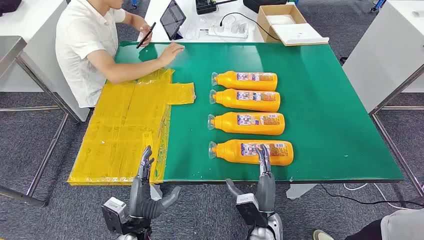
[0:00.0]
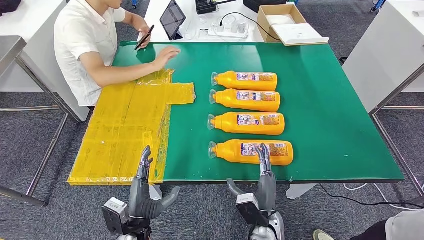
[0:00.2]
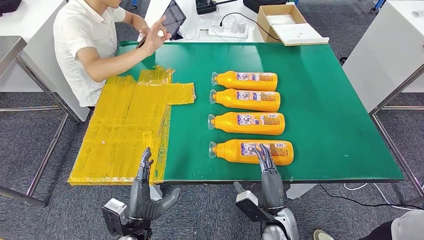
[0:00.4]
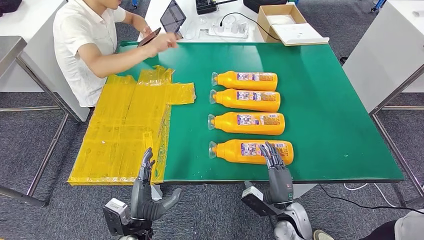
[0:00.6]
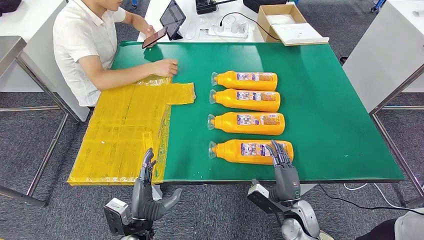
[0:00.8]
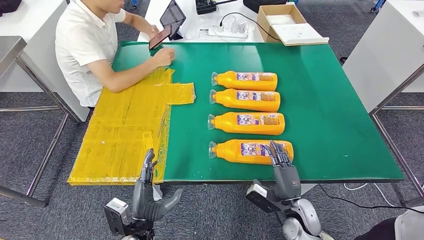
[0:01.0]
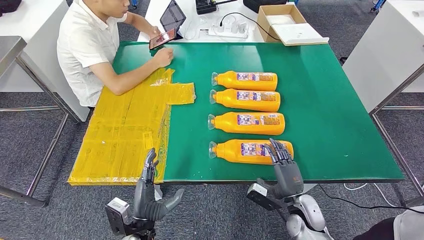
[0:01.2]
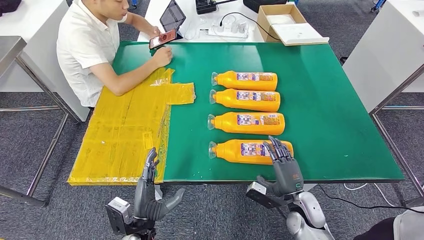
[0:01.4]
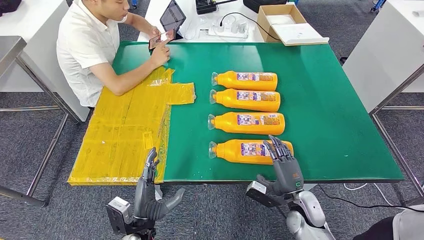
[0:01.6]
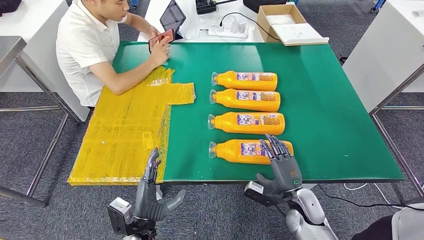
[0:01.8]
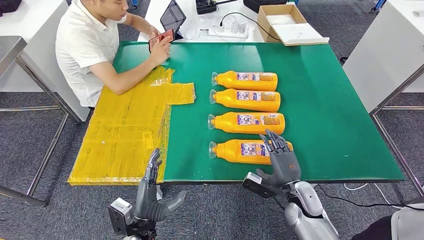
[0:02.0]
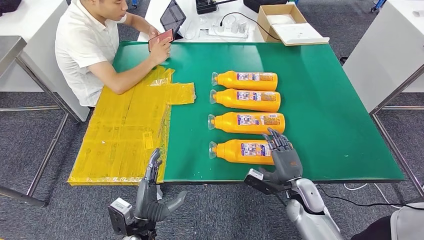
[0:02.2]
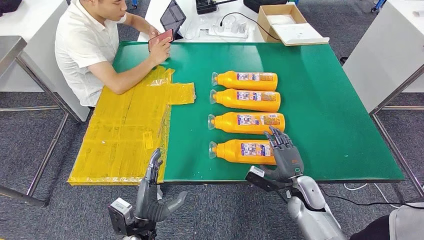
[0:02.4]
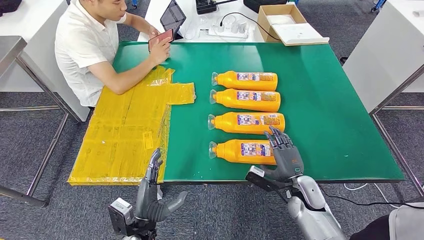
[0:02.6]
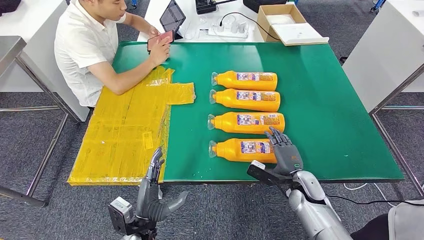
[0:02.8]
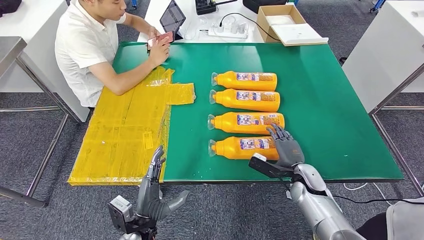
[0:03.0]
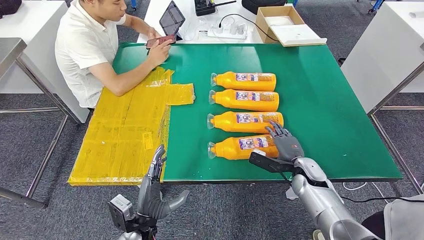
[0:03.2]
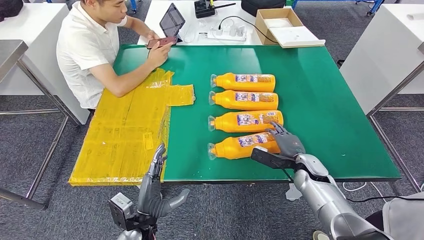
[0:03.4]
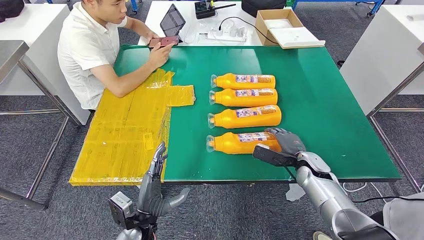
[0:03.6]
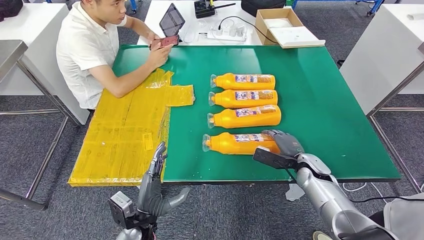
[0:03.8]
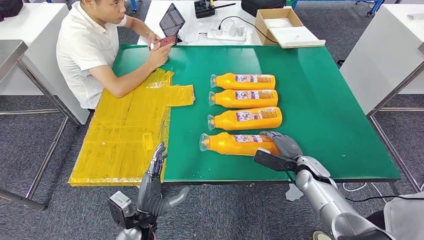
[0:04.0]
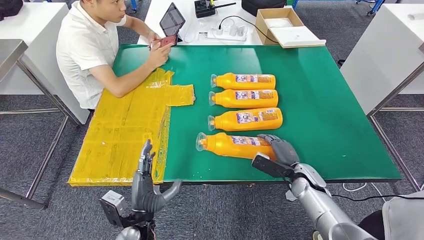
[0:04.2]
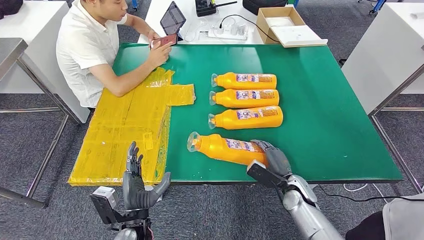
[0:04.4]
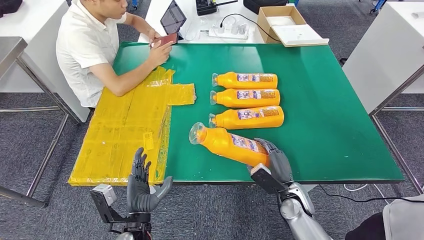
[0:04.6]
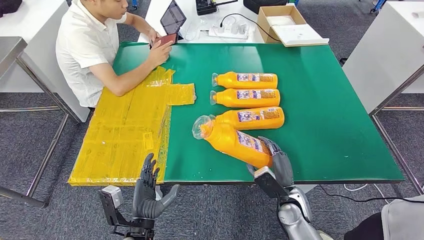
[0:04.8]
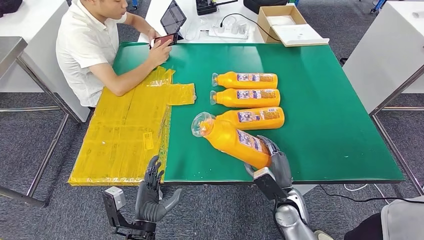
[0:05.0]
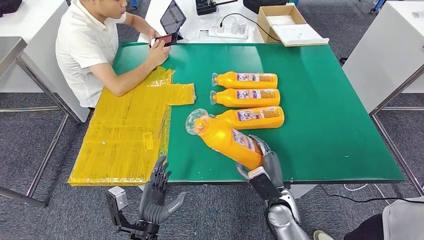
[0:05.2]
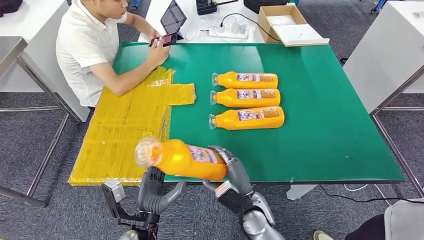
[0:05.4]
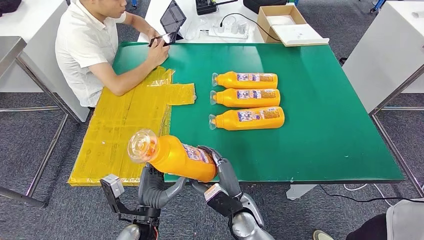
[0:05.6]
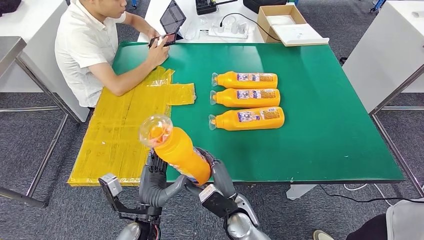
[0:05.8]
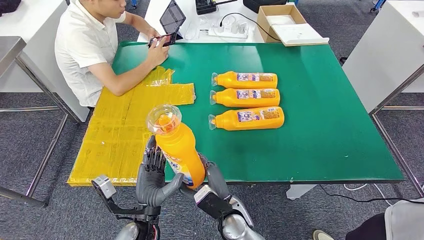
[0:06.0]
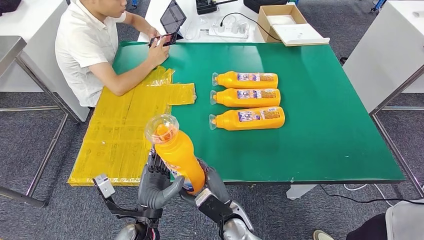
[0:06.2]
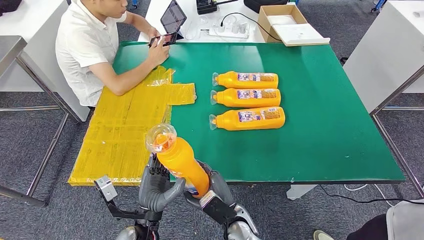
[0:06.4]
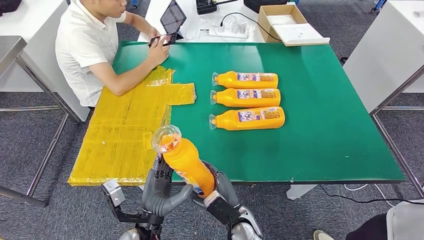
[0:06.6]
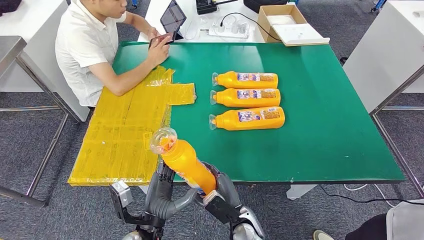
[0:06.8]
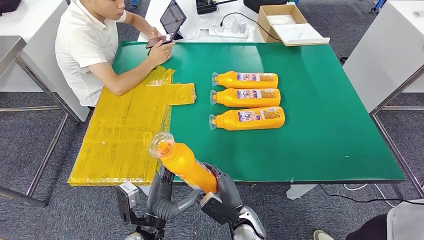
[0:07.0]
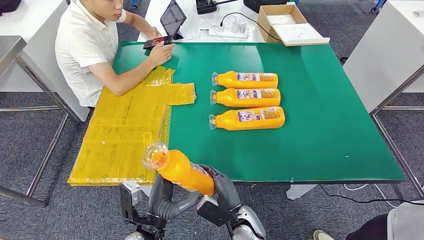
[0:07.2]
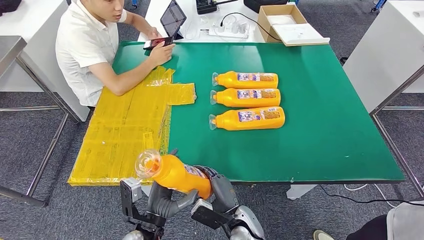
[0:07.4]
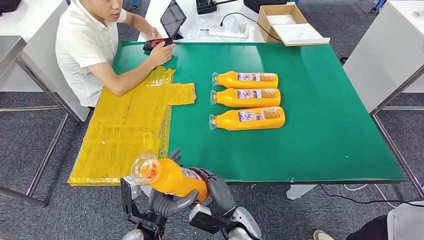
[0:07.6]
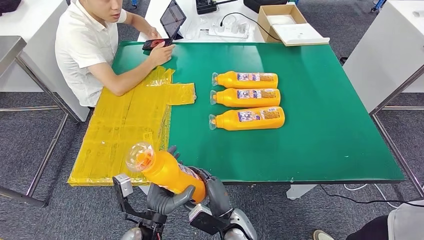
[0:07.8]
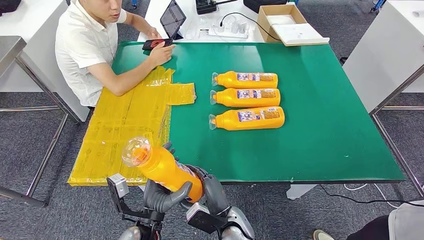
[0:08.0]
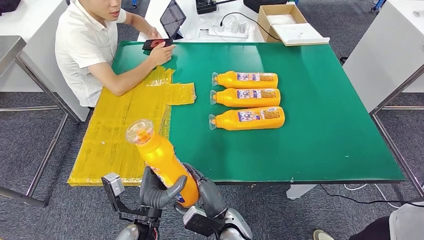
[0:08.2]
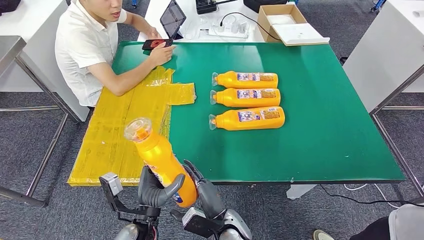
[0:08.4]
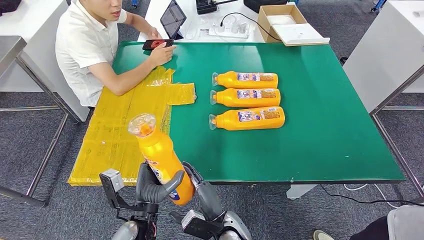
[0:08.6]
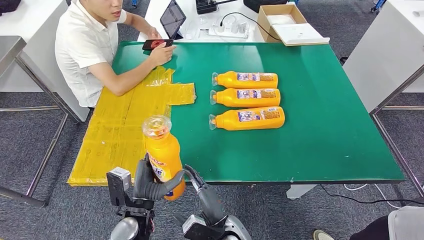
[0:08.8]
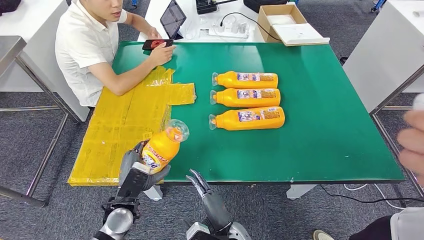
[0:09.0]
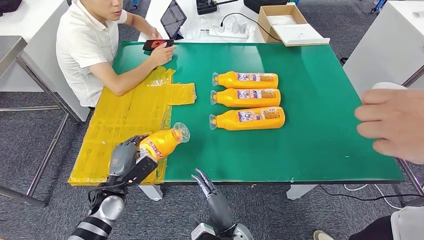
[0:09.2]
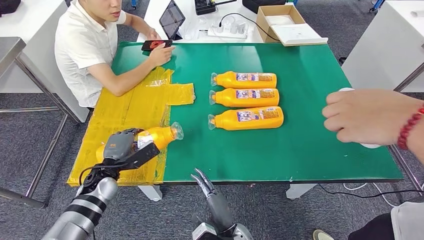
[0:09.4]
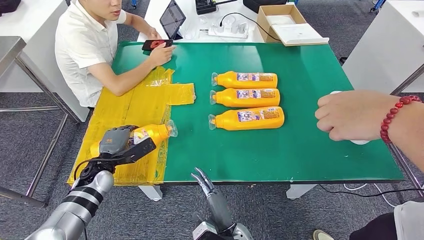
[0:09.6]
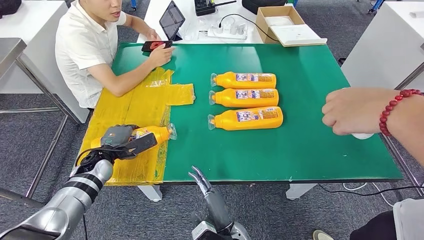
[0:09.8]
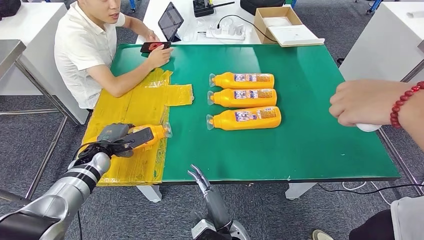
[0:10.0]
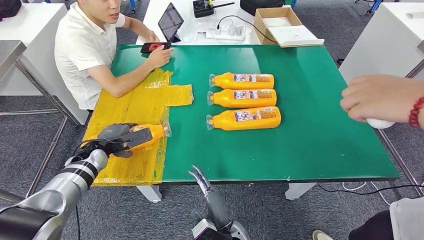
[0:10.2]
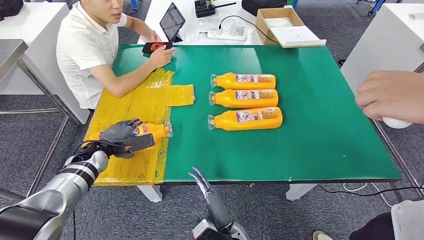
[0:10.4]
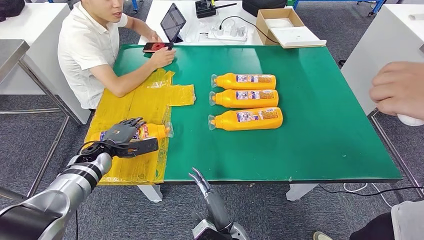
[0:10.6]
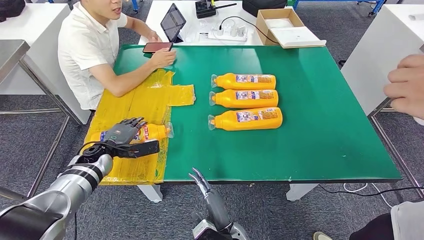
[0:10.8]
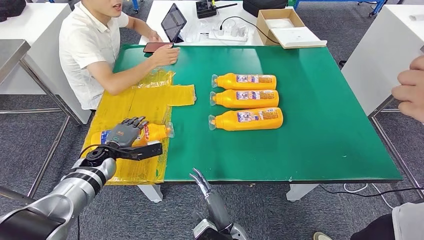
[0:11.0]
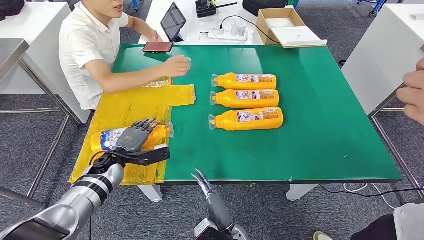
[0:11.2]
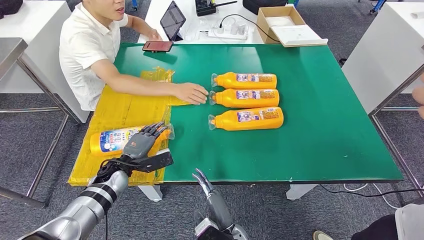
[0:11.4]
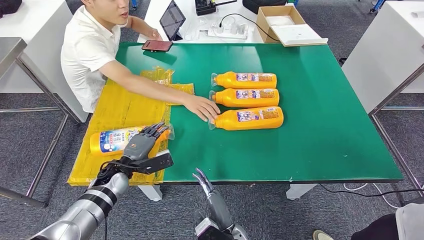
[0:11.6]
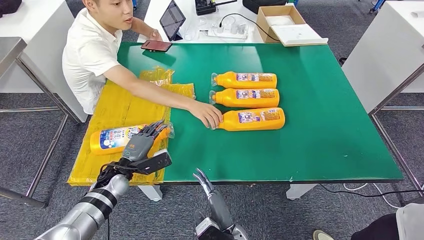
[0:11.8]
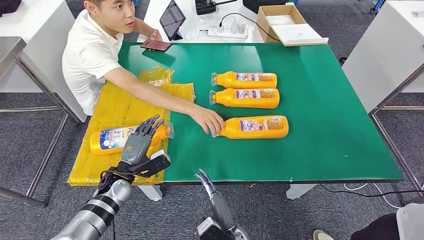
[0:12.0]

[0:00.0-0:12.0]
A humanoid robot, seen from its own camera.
Step, 0:00.0 to 0:06.2: Take the fast-moving consumer goods bottle from the table.
Step, 0:06.4 to 0:11.6: Flip the fast-moving consumer goods bottle to the front side.
0:01.6 to 0:03.0: The right hand moves forward, roughly 5 cm.
0:04.4 to 0:06.0: The right hand moves to the left, some 20 cm.
0:07.6 to 0:09.0: The left hand travels to the left and forward by about 10 cm.

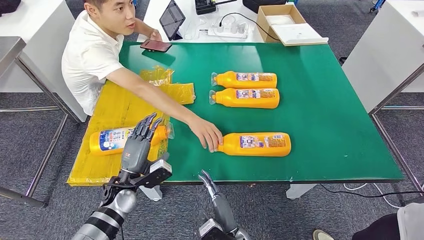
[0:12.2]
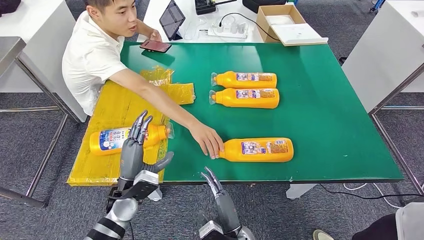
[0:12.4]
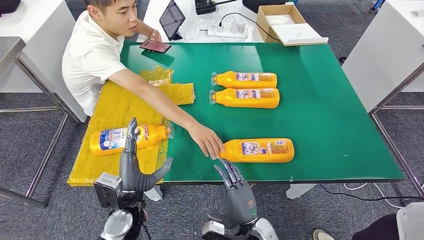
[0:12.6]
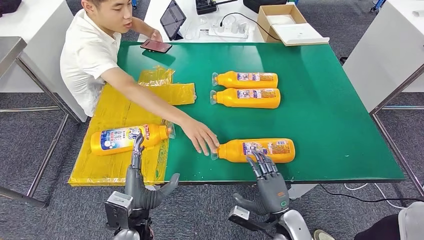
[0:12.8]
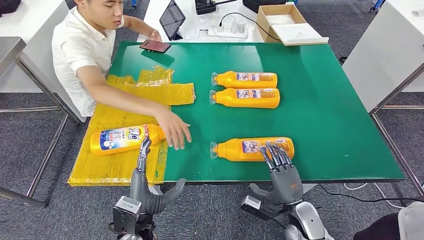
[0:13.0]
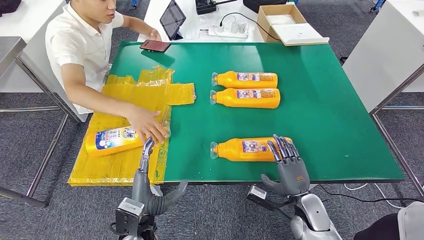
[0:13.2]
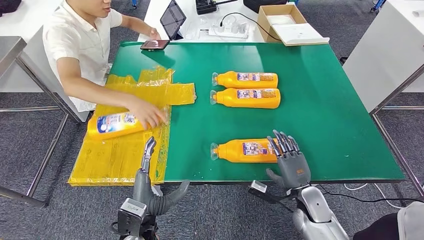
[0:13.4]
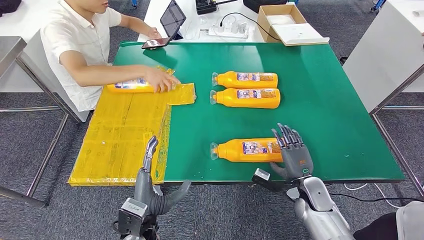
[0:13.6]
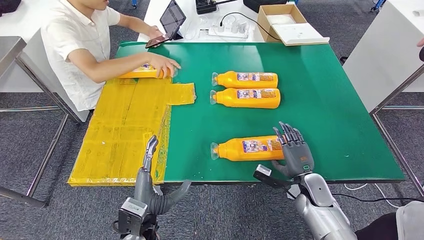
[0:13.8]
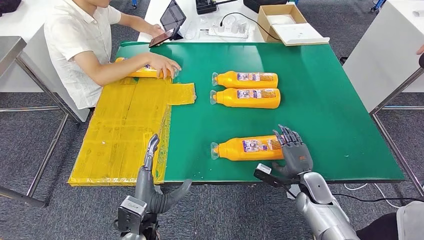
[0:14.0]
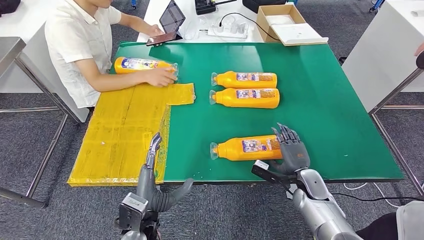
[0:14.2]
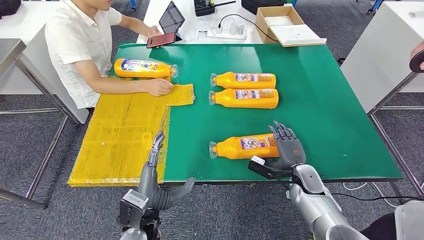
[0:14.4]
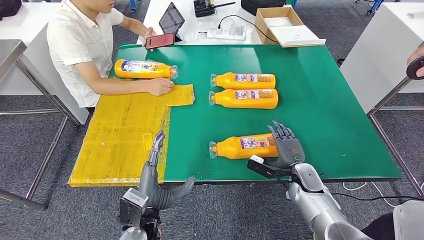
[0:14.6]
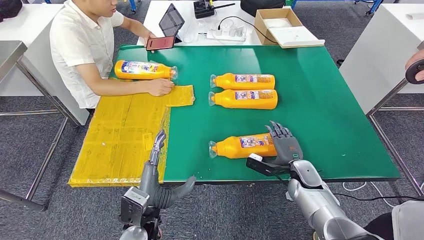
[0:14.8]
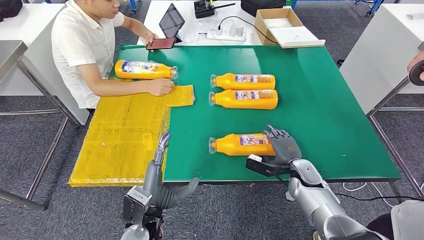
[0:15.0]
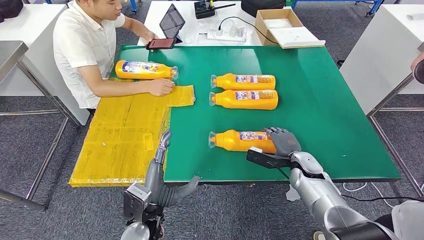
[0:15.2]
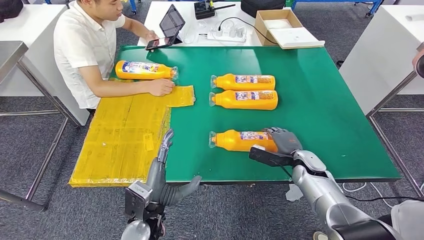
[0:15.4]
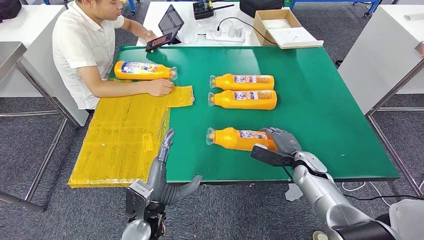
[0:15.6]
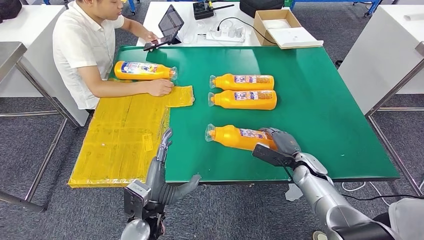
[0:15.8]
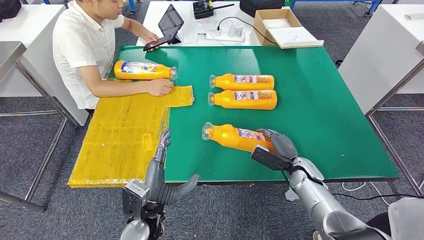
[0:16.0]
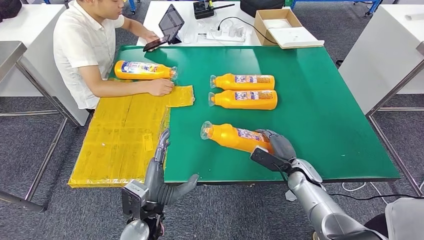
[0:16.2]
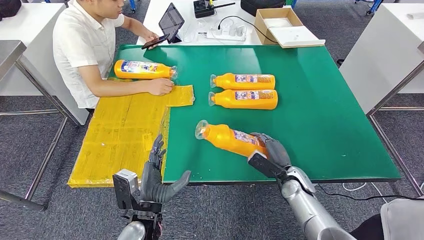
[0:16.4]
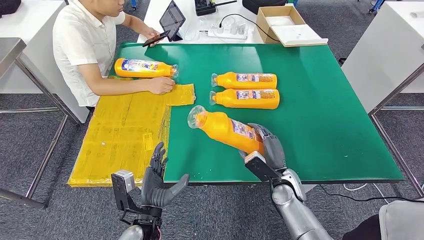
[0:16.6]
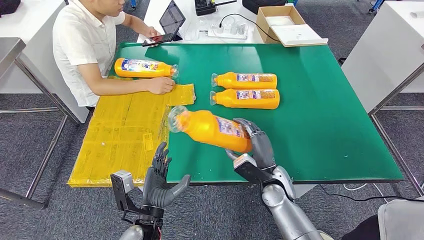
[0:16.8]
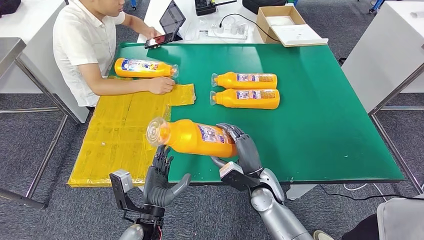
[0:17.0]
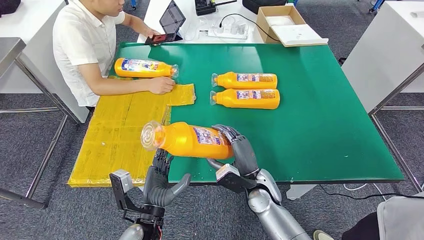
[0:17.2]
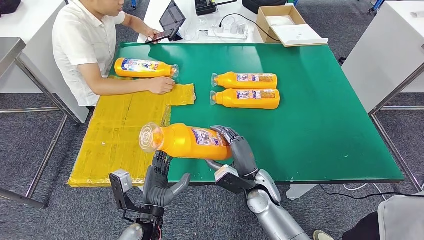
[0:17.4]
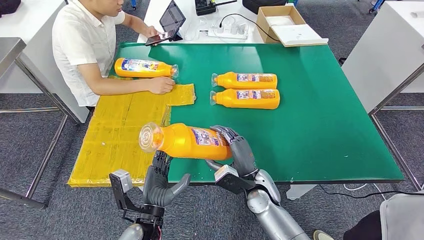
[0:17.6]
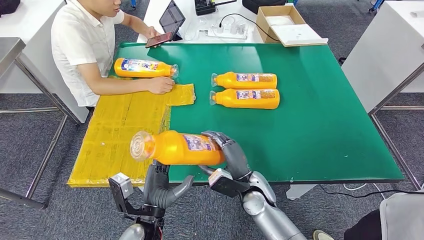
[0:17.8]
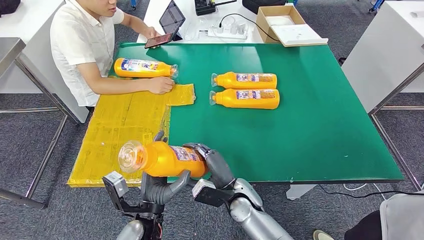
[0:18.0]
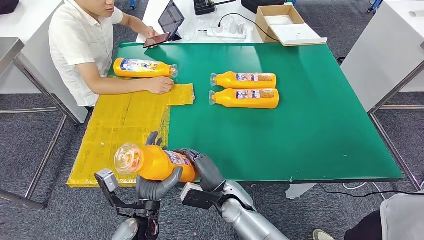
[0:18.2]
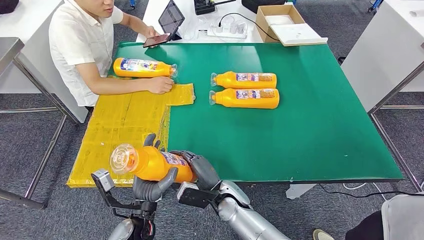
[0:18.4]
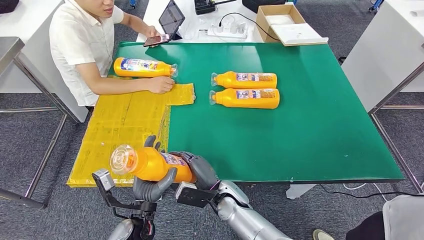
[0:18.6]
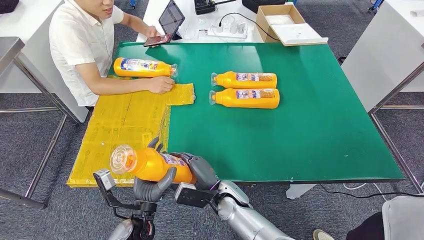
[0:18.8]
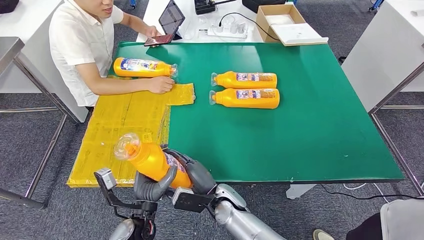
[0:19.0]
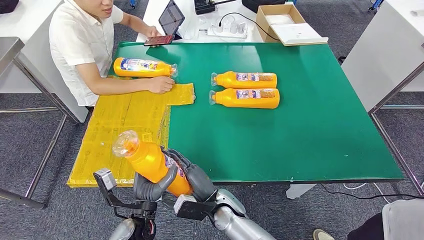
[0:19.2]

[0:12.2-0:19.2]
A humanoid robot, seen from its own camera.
Step, 0:12.2 to 0:17.0: Pick up the fast-moving consumer goods bottle from the table.
0:17.8 to 0:19.2: The right hand heads to the left, covering roughly 10 cm.
